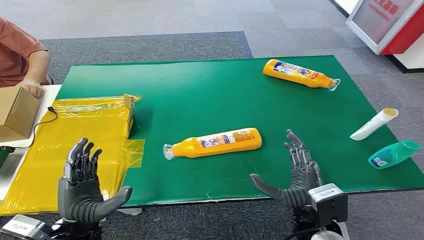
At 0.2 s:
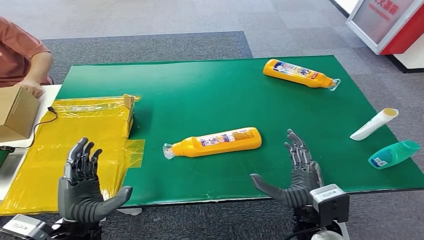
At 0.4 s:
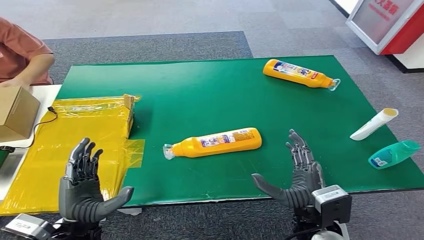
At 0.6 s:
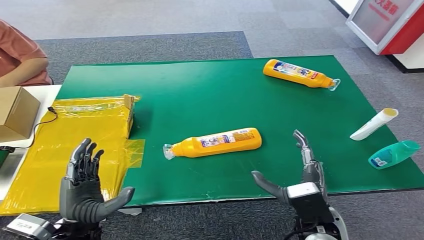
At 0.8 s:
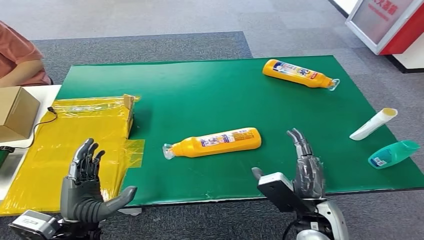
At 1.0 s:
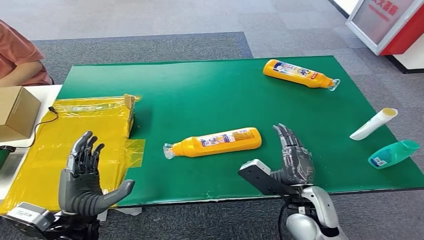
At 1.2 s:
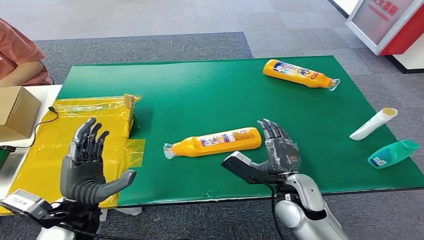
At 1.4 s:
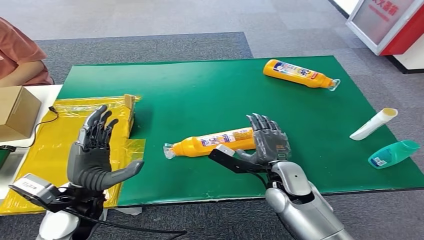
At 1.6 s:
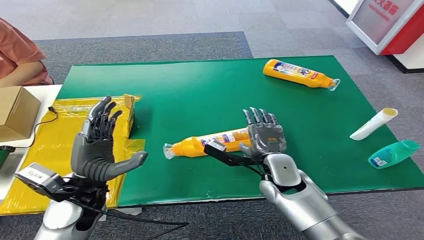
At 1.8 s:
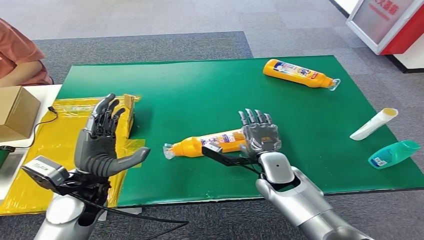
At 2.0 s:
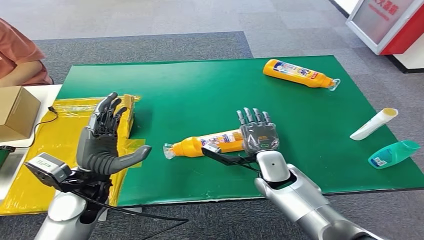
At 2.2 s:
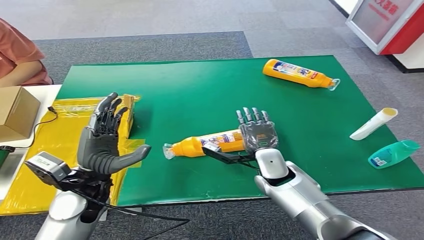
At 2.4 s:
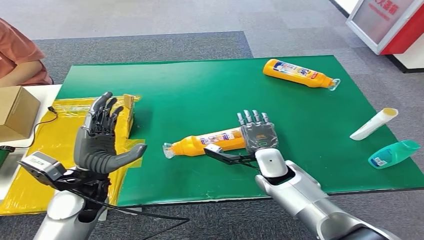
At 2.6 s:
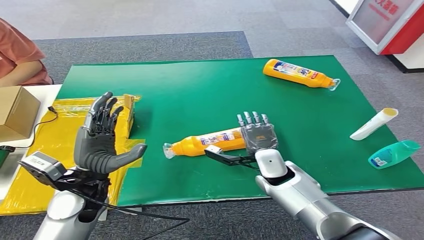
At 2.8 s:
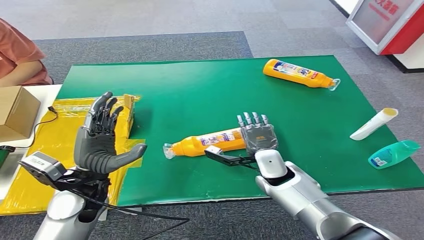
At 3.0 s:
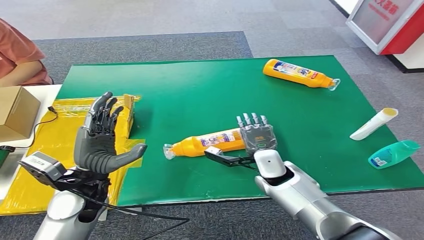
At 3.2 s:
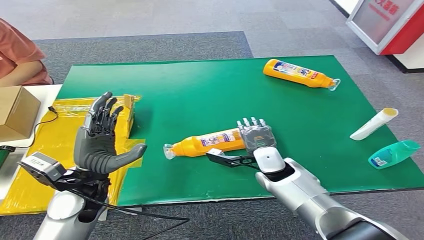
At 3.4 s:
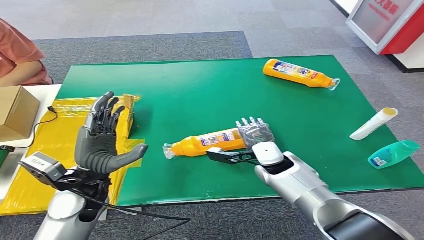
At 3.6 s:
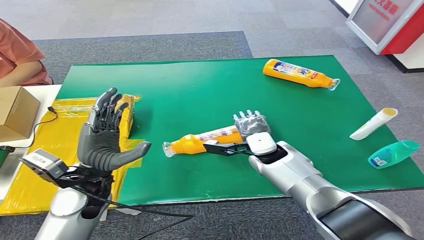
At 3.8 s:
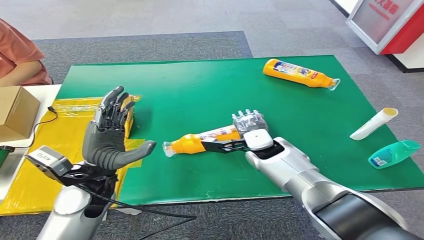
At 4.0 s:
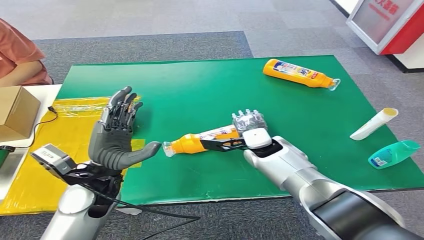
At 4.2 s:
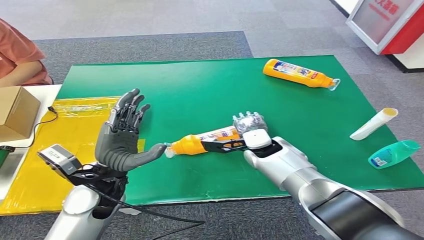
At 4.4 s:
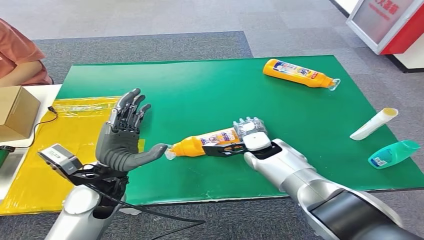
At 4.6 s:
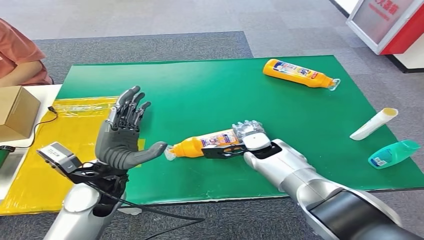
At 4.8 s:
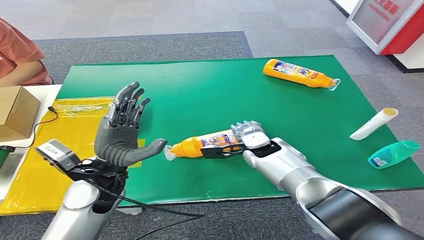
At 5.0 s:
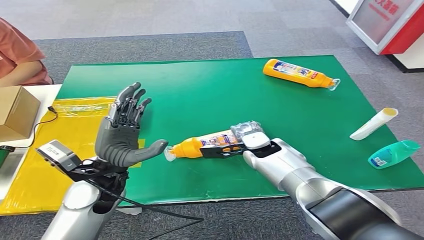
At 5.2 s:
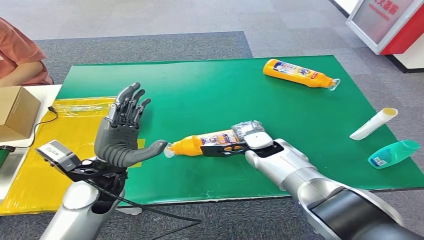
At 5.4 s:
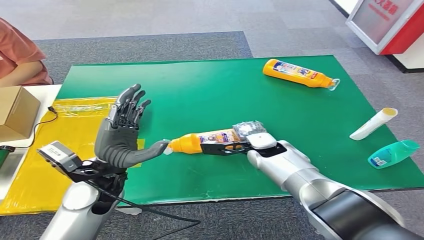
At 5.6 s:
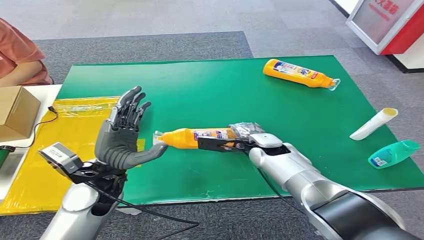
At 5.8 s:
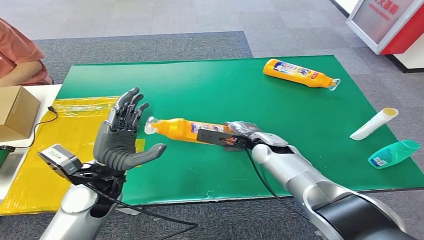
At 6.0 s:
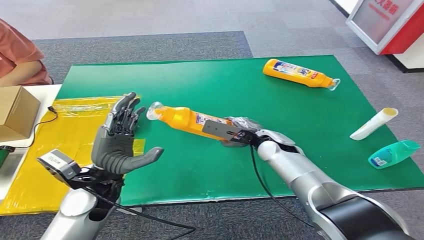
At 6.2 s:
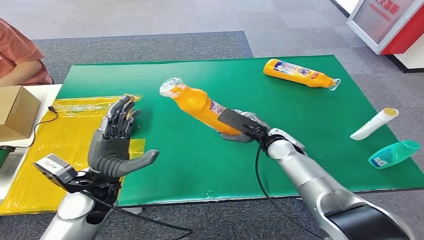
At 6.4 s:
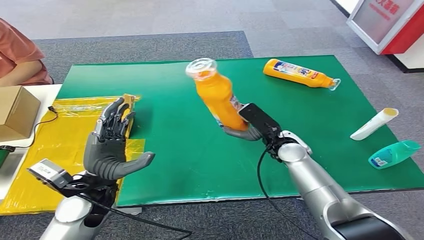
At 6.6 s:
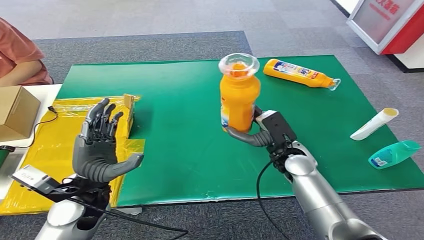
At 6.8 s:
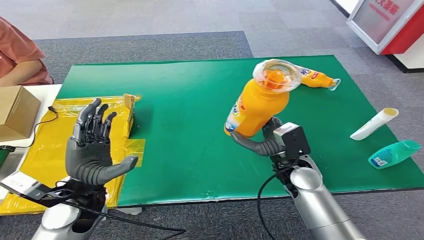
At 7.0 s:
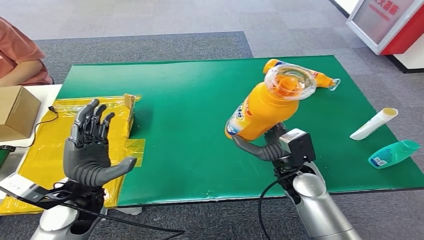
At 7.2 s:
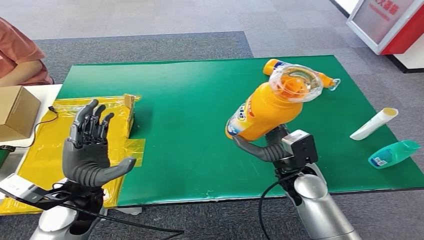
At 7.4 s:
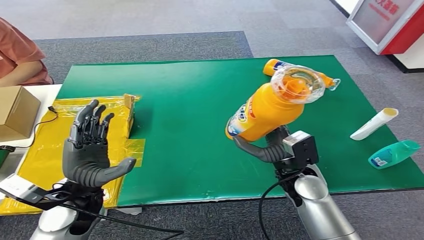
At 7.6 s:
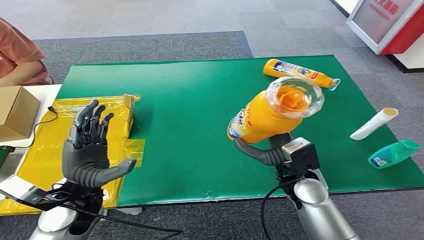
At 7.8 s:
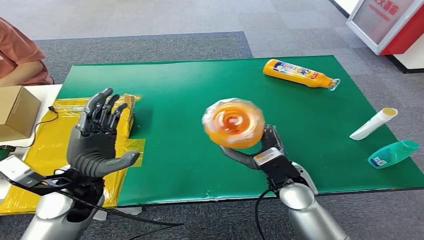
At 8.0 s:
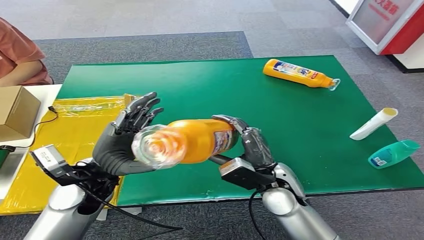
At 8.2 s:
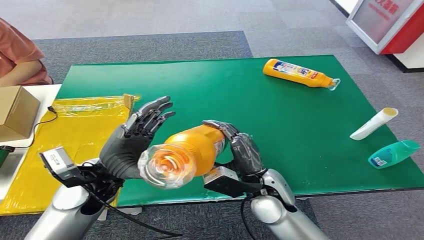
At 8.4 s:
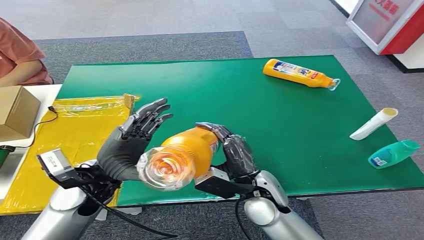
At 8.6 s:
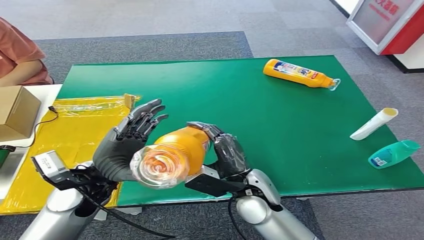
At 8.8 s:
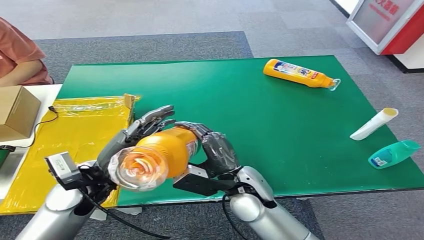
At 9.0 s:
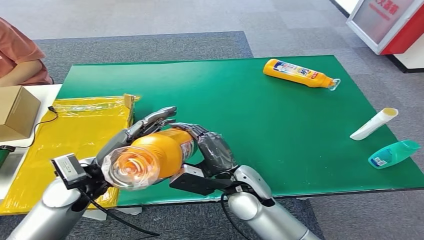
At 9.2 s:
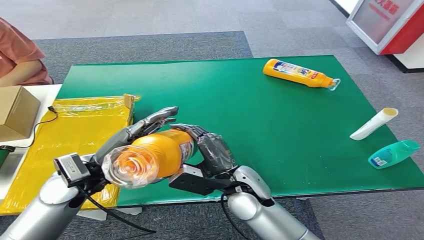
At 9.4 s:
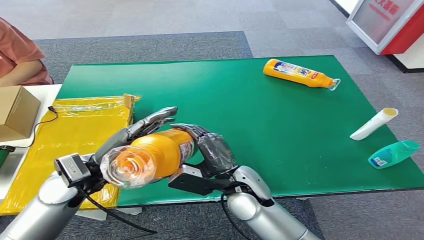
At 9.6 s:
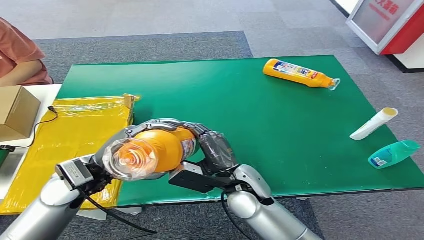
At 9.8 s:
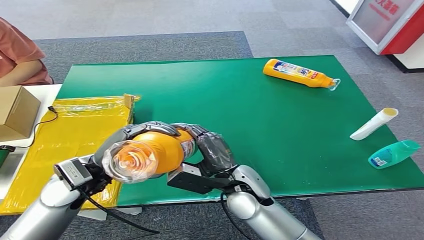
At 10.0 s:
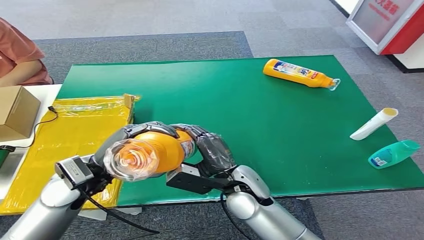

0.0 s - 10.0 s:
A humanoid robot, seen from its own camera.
Step, 0.0 s - 6.8 s: Pick up the bottle from the table.
1.4 s - 2.8 s: The right hand goes about 5 cm forward.
2.8 s - 4.2 s: The right hand goes roughly 5 cm forward.
8.6 s - 10.0 s: There are only small adjustments of the hands.

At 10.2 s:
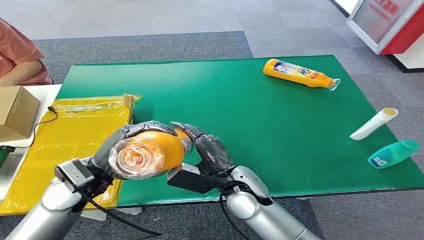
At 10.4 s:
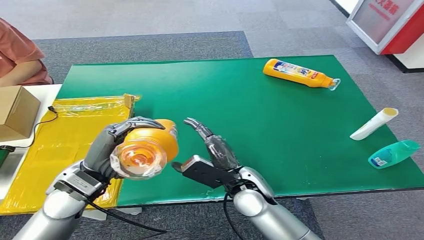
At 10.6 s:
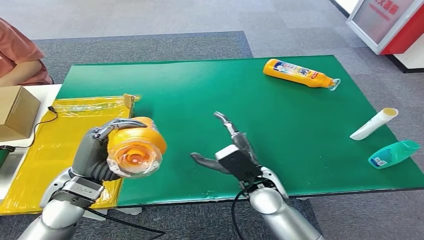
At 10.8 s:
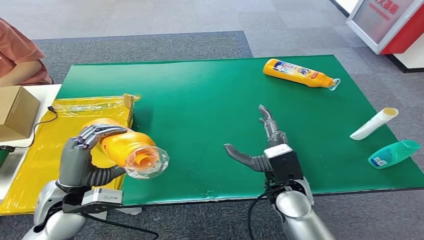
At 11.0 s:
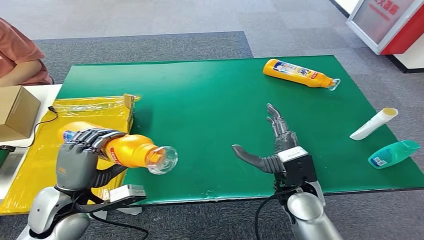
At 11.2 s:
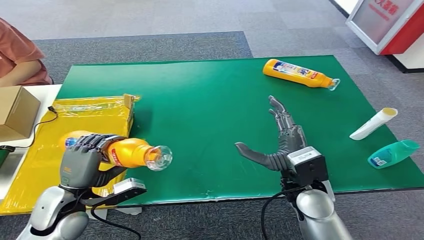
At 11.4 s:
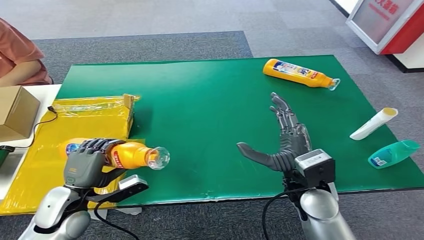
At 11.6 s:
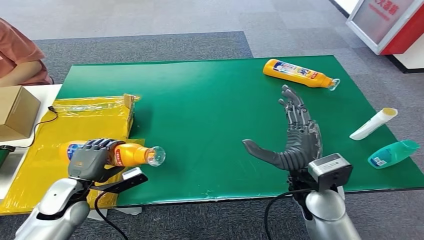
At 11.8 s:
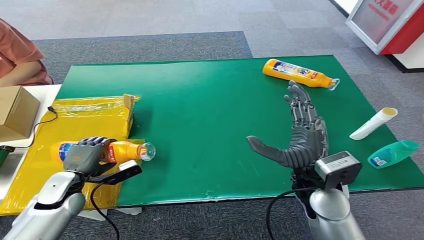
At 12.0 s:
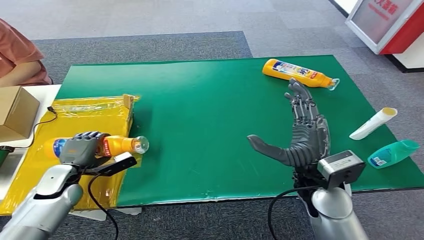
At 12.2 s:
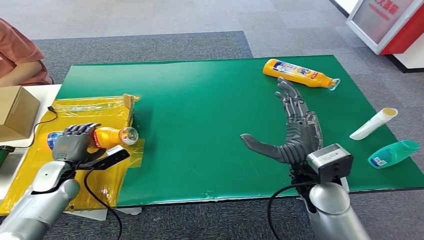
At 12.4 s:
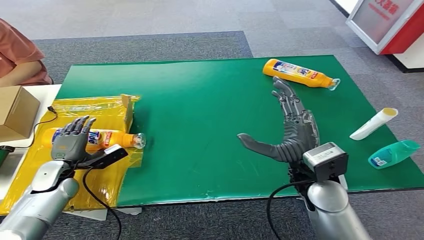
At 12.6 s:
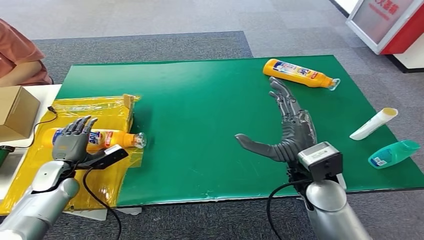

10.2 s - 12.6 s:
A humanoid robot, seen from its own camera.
Step, 10.2 s - 12.6 s: Turn the bottle to the front side.
10.2 s - 11.4 s: The right hand moves to the right, some 10 cm. Meanwhile the left hand is displaced downward and to the left by approximately 10 cm.
11.4 s - 12.6 s: The left hand goes about 10 cm forward and to the left.

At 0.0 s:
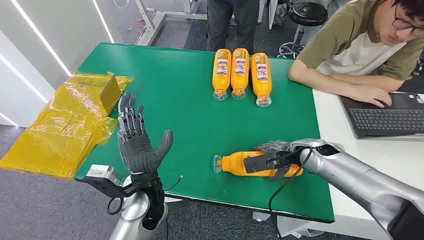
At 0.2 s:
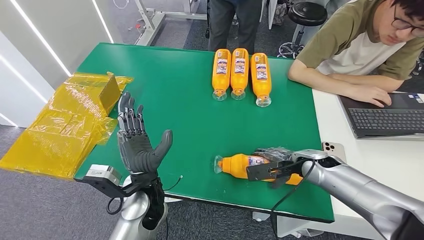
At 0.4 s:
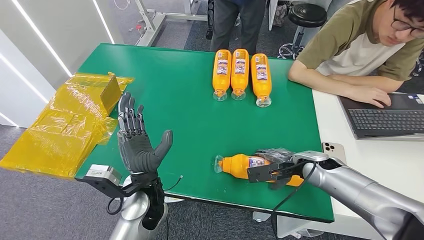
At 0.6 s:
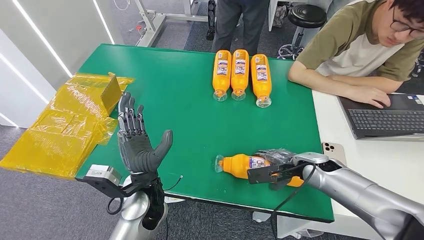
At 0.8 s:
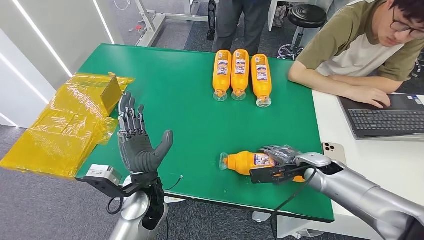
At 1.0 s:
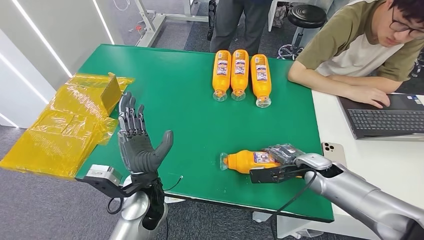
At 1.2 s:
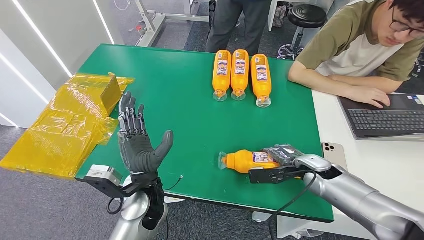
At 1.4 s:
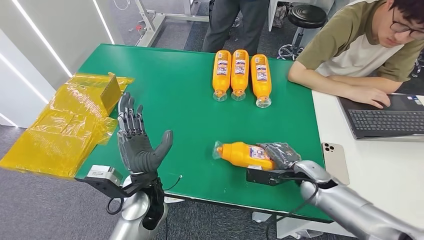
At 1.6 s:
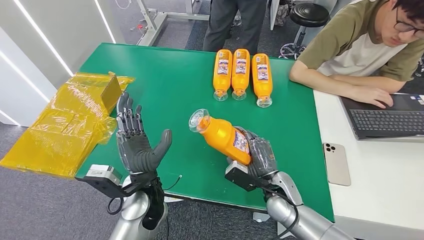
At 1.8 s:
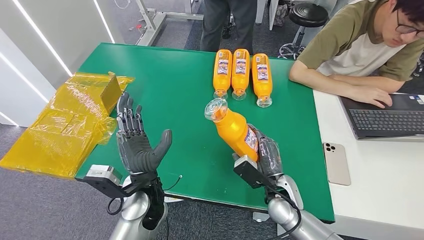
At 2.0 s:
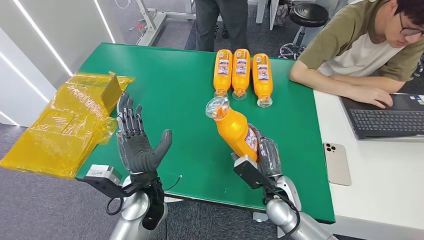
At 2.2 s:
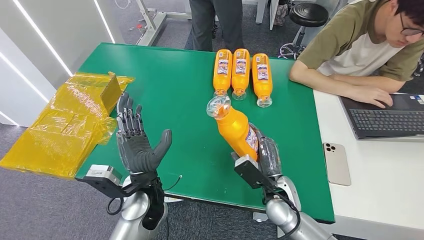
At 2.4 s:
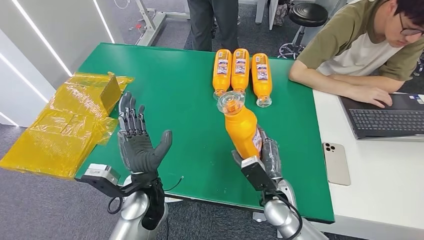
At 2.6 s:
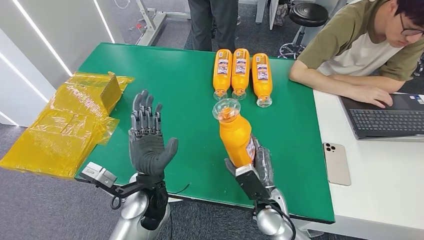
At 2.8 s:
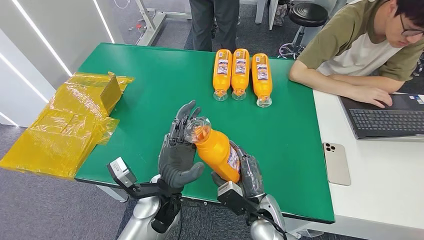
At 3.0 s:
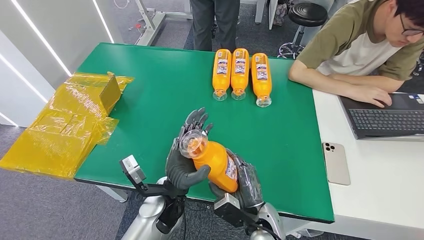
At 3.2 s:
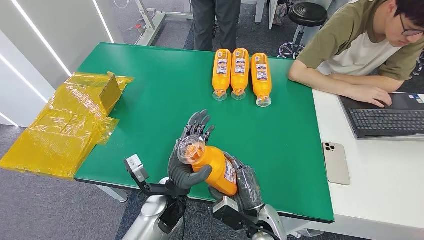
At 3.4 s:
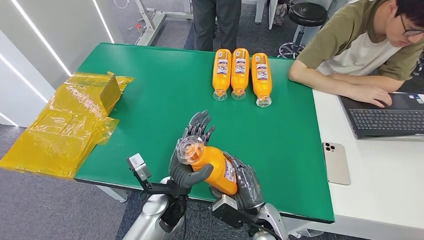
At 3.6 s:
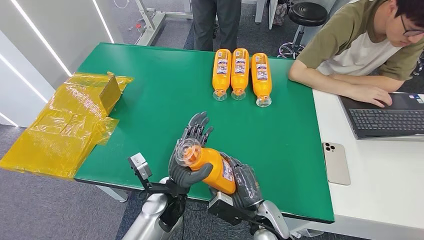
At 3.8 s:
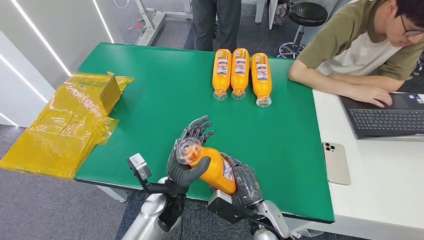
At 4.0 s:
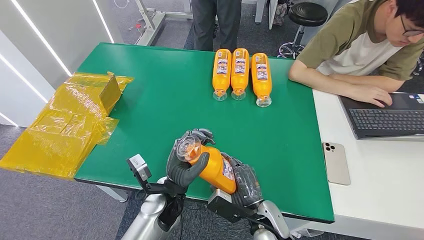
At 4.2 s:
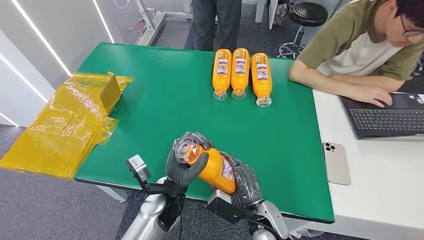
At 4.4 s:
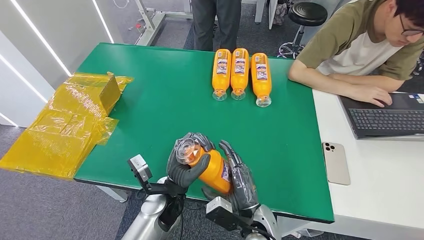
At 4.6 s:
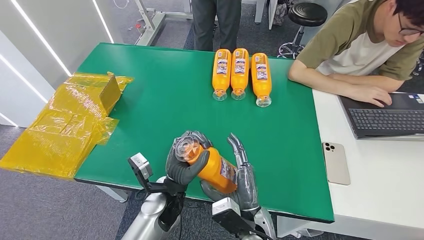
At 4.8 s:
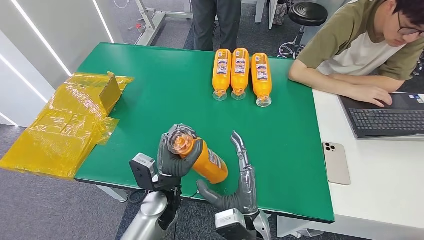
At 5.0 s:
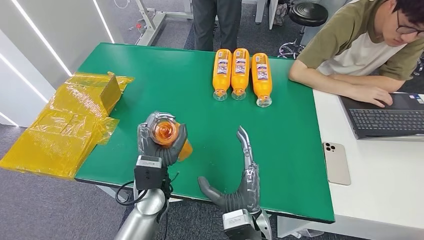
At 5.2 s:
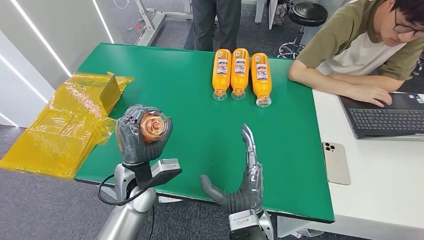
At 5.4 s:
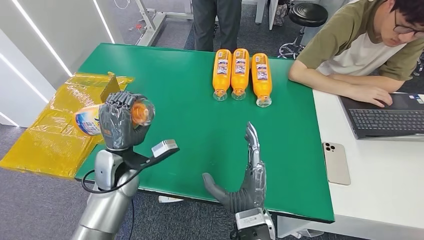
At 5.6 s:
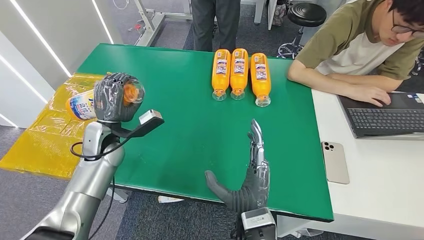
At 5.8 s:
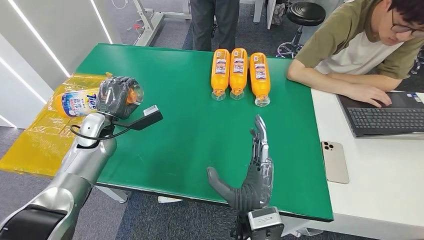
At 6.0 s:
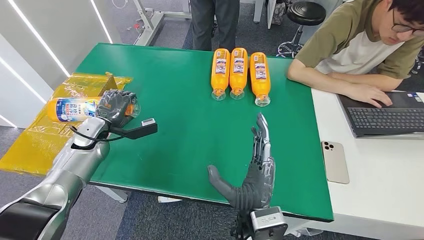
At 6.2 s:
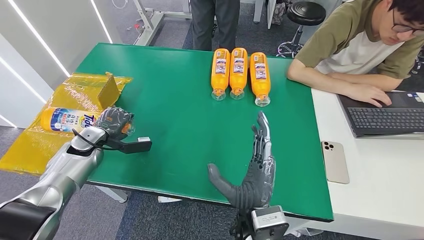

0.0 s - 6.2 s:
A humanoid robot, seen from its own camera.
Step, 0.0 s - 2.6 s: Pick up the bottle from the table.
3.2 s - 4.6 s: The hands make only small movements.
